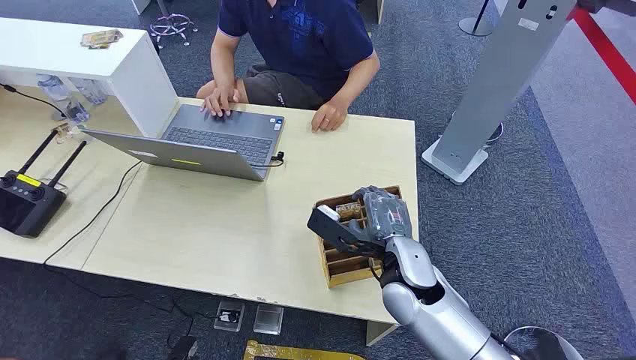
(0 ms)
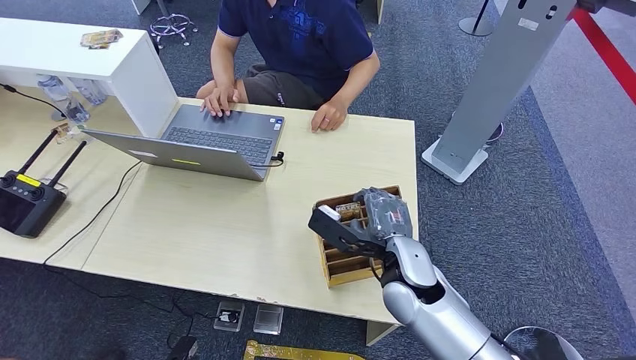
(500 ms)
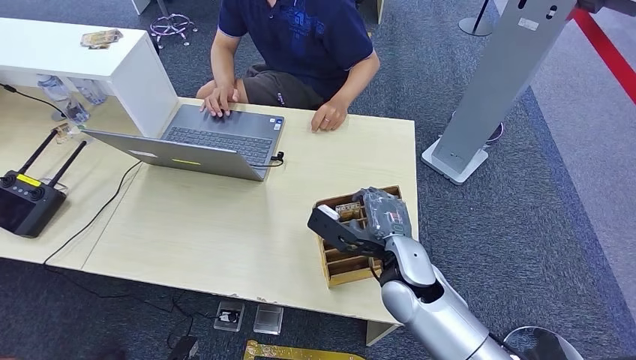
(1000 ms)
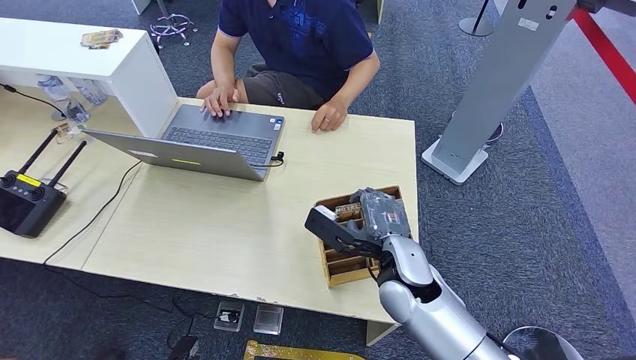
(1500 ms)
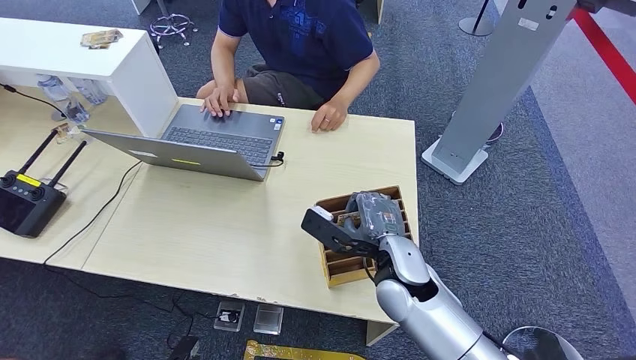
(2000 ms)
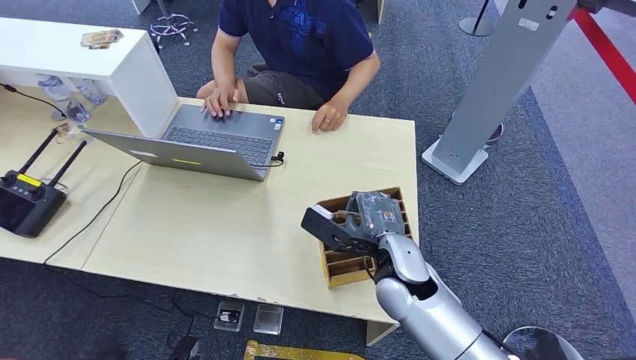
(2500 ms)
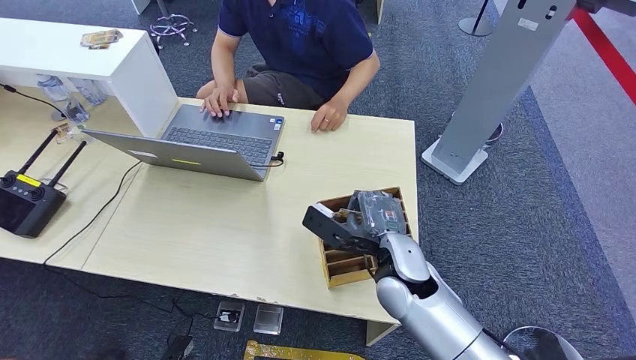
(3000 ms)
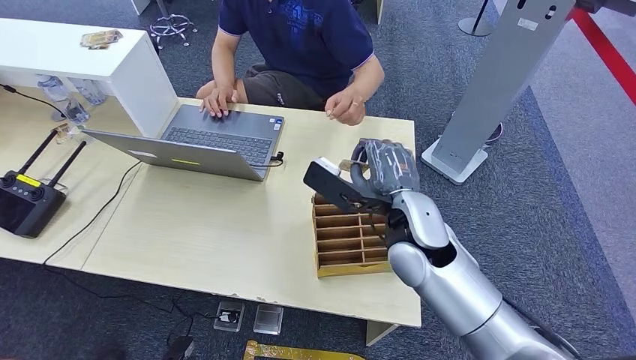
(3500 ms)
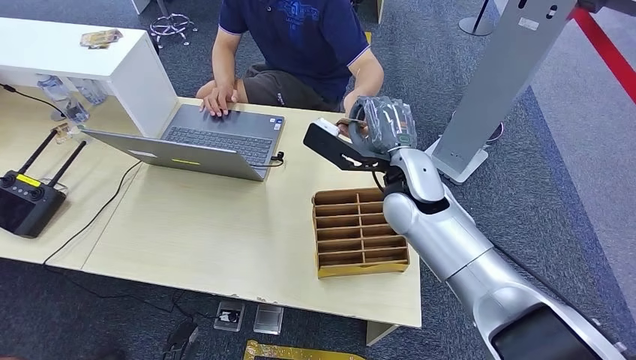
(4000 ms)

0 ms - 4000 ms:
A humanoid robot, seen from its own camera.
Step, 0 ms - 3000 ms: Pick up the room card from the card holder.
2000 ms - 4000 ms: The right hand goes some 15 cm upward and forward.

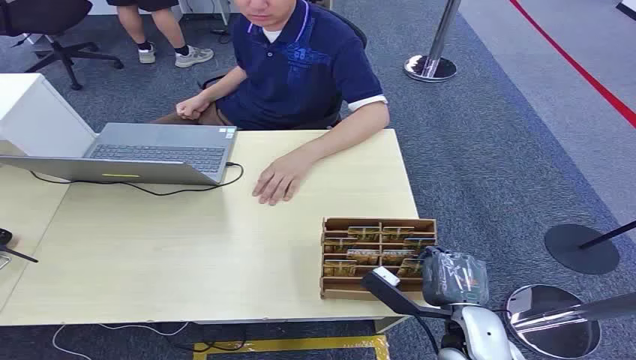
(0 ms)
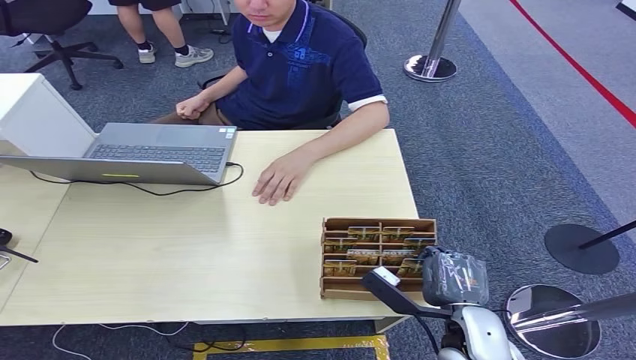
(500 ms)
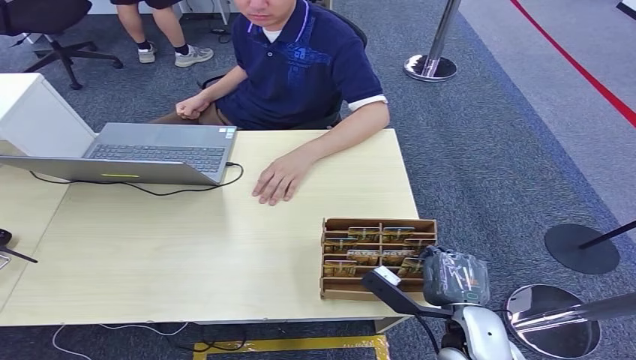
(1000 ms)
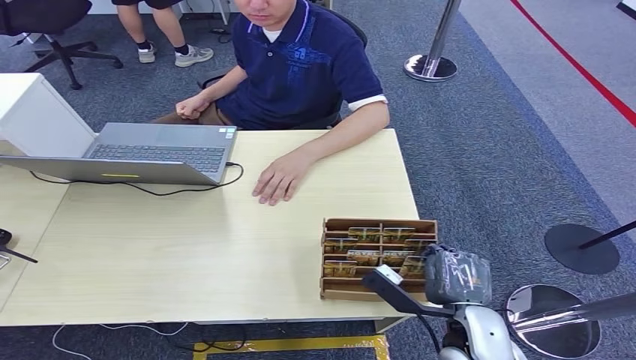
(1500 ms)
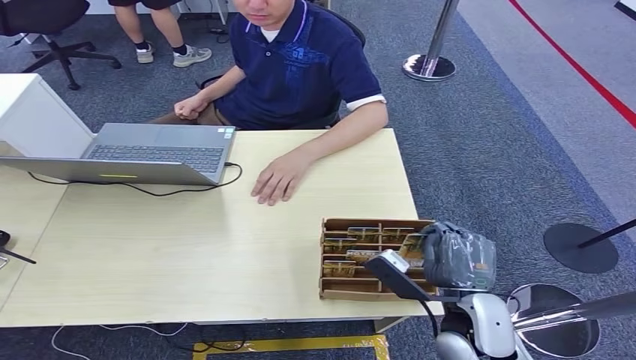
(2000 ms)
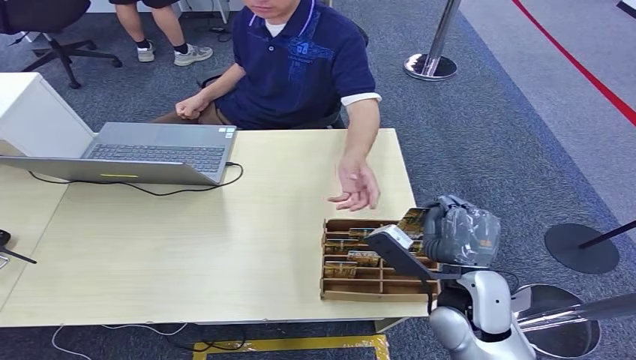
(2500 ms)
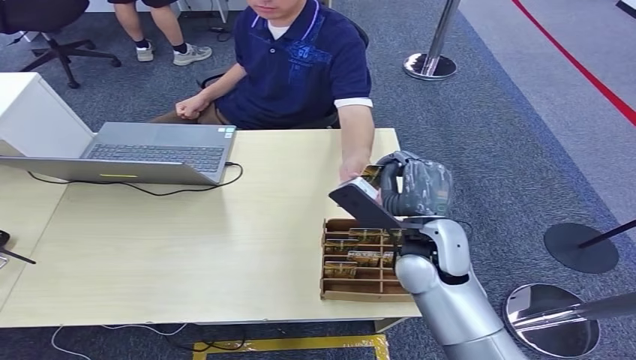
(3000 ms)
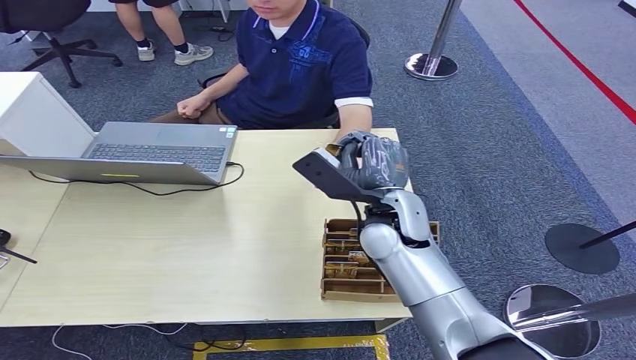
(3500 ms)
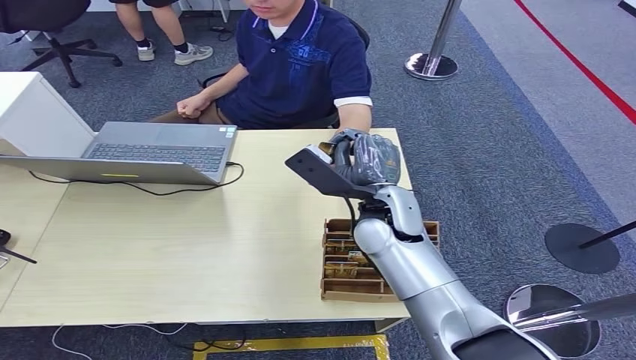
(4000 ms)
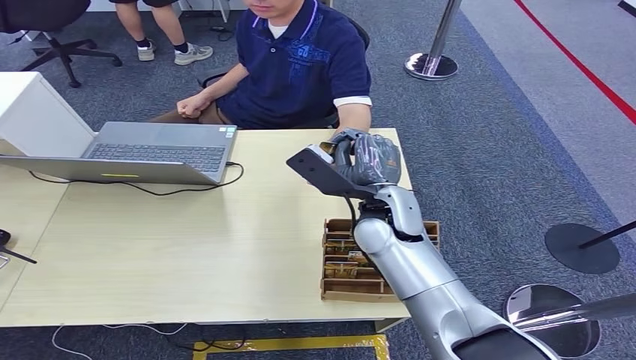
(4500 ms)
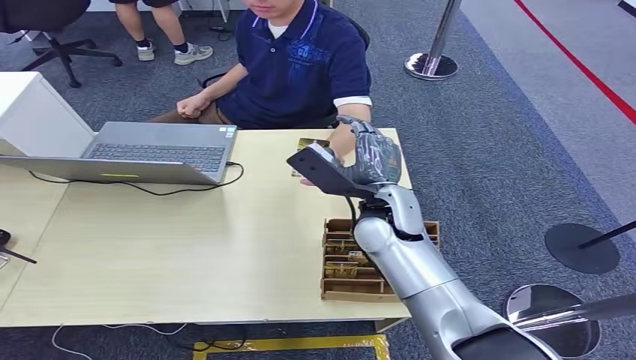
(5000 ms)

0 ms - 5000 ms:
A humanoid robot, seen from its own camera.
Step, 0 ms - 2500 ms: Pick up the room card from the card holder.
Step, 3000 ms - 4500 ms: Hand the room card to the target.
2500 ms - 5000 ms: The right hand heads forward and to the left, covering approximately 15 cm.
